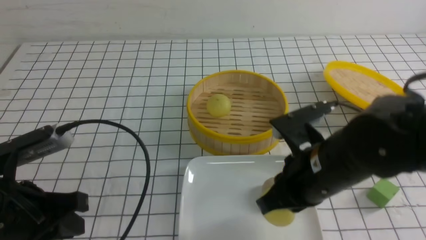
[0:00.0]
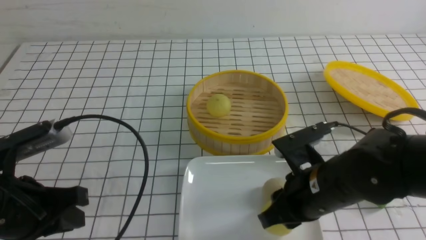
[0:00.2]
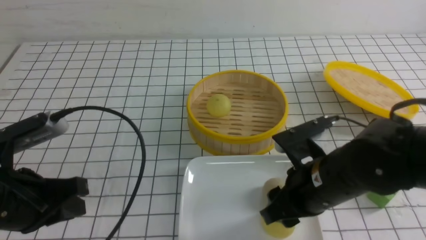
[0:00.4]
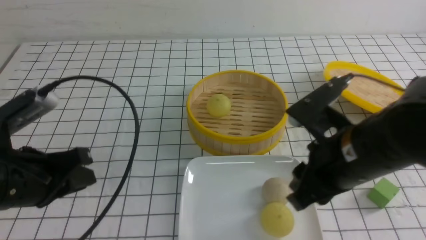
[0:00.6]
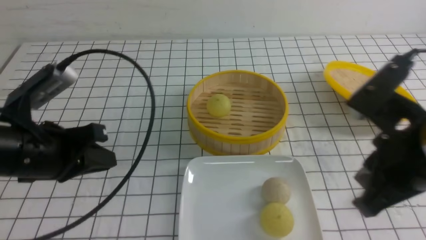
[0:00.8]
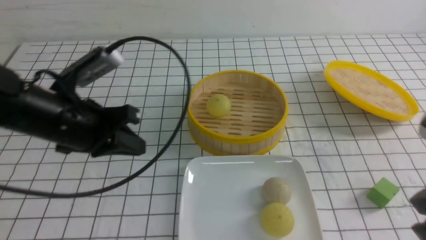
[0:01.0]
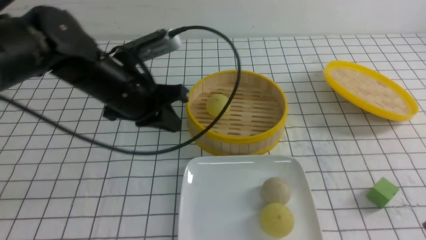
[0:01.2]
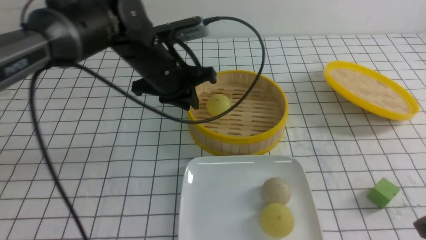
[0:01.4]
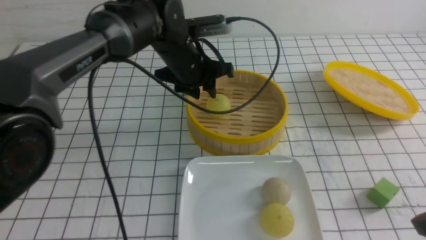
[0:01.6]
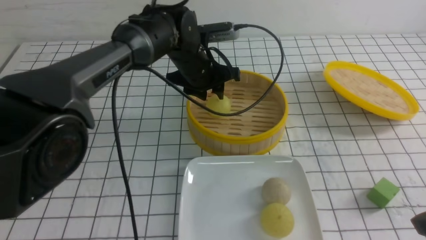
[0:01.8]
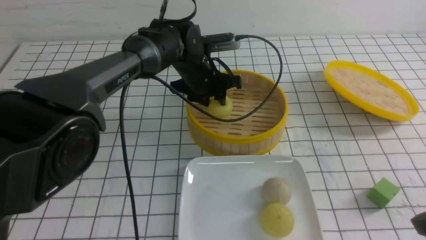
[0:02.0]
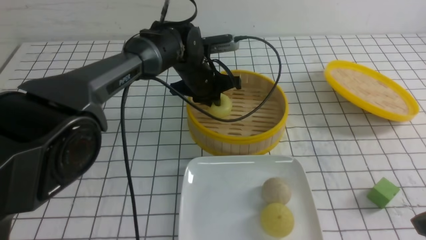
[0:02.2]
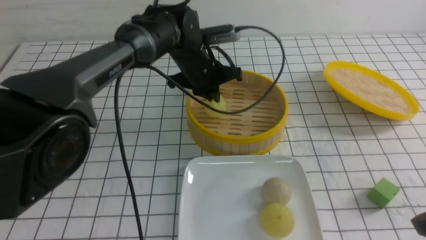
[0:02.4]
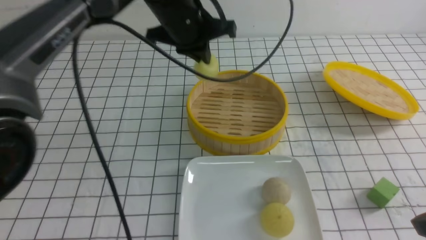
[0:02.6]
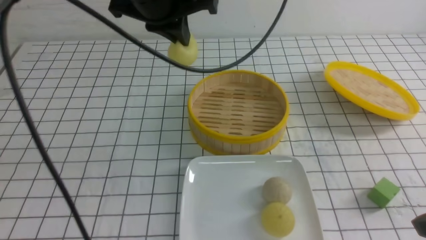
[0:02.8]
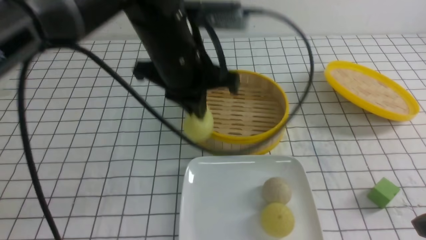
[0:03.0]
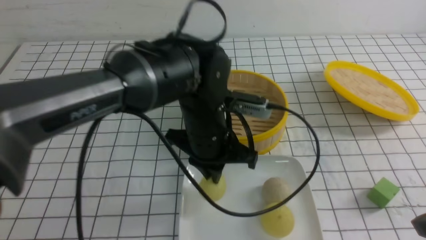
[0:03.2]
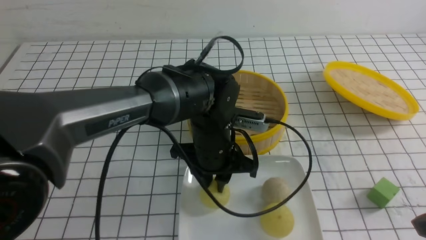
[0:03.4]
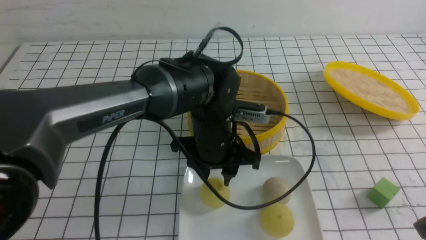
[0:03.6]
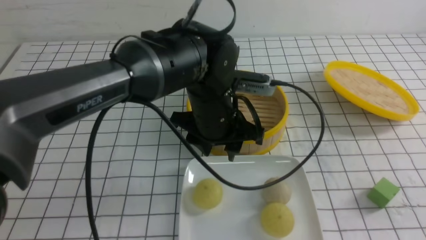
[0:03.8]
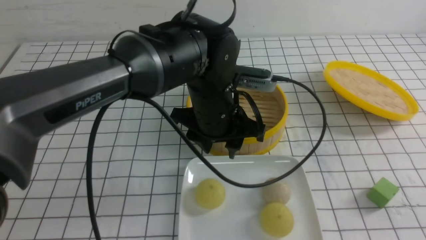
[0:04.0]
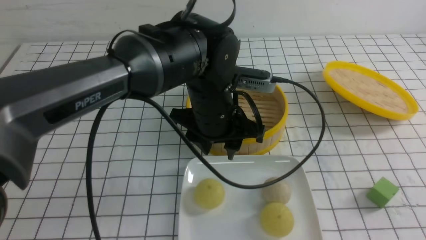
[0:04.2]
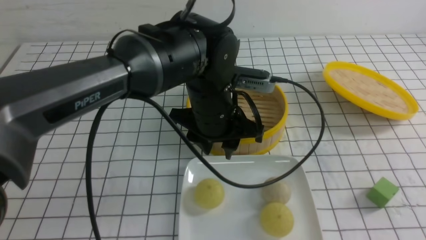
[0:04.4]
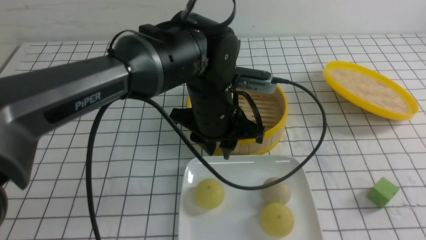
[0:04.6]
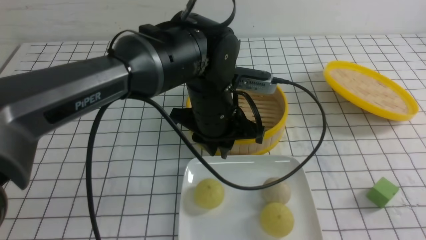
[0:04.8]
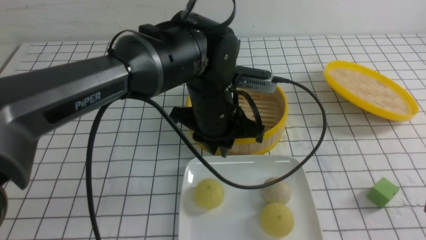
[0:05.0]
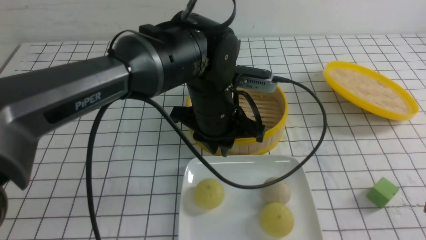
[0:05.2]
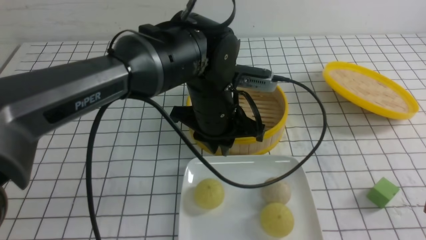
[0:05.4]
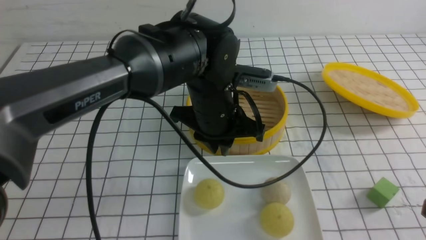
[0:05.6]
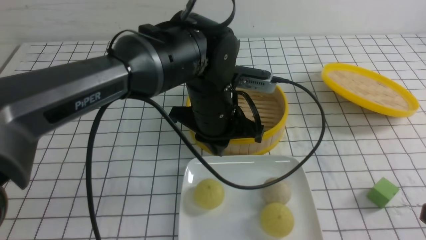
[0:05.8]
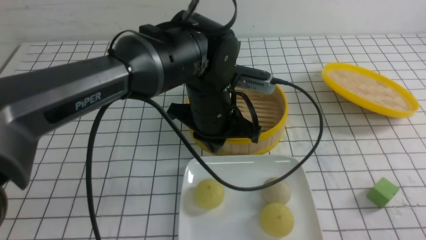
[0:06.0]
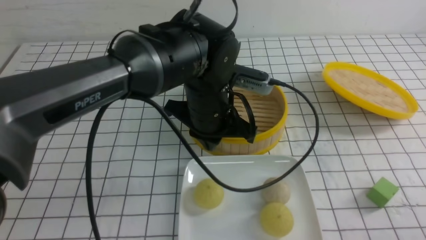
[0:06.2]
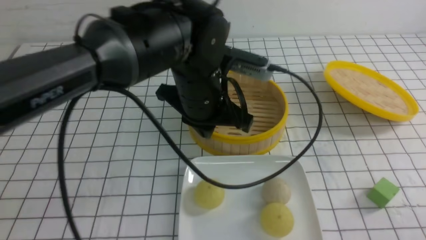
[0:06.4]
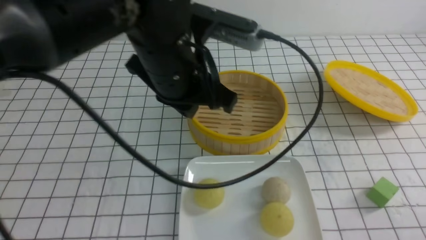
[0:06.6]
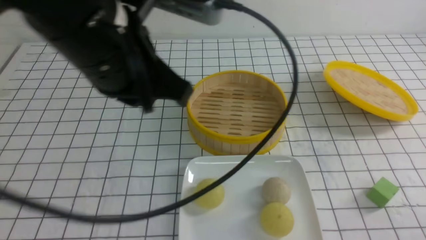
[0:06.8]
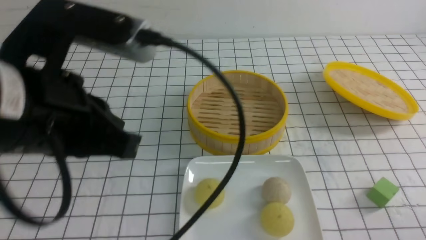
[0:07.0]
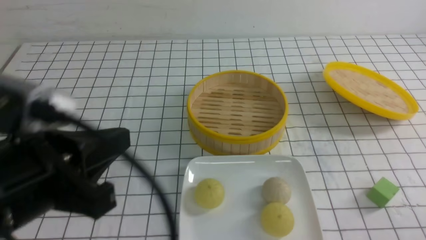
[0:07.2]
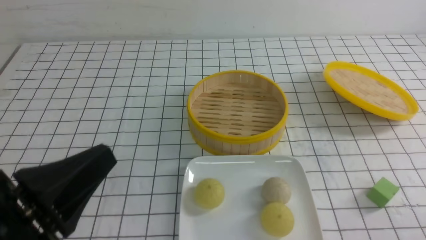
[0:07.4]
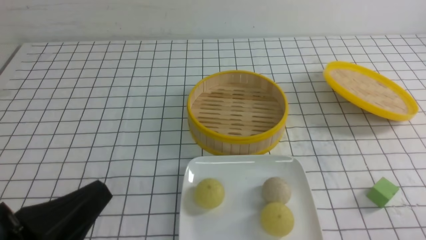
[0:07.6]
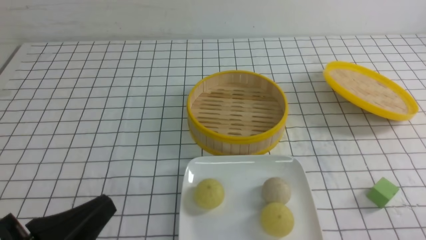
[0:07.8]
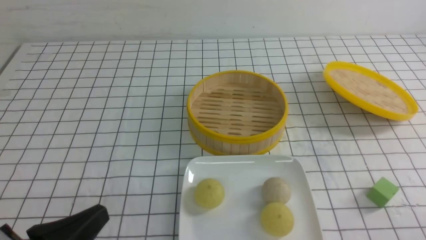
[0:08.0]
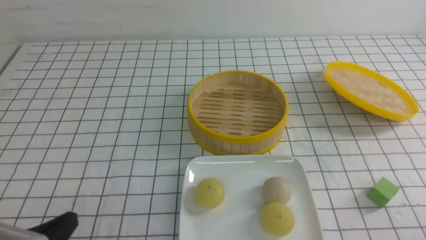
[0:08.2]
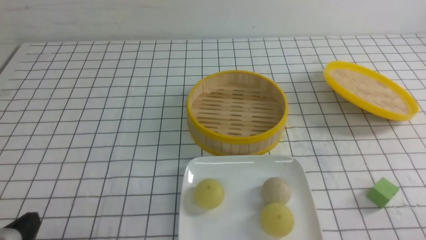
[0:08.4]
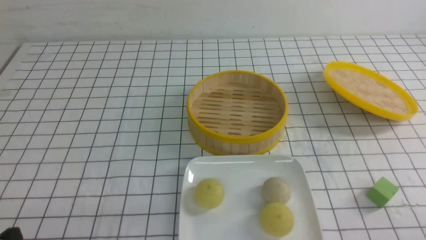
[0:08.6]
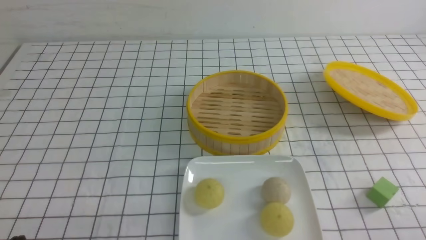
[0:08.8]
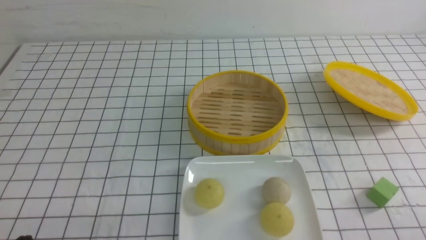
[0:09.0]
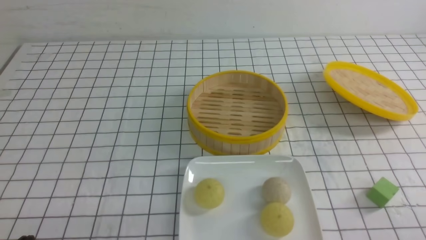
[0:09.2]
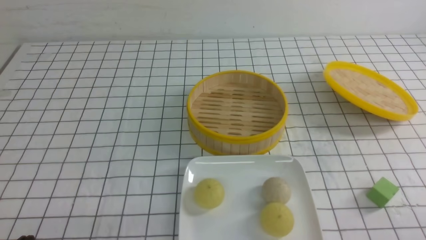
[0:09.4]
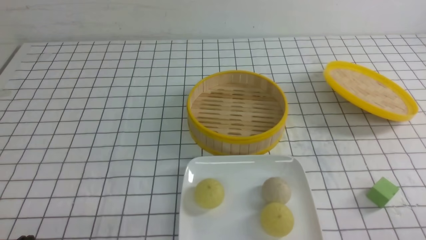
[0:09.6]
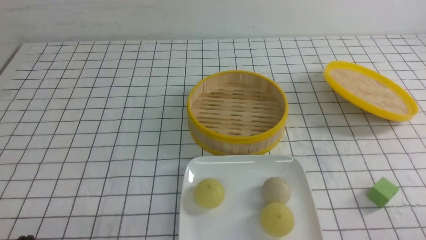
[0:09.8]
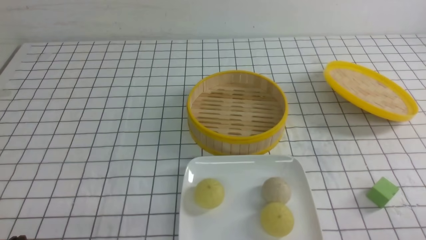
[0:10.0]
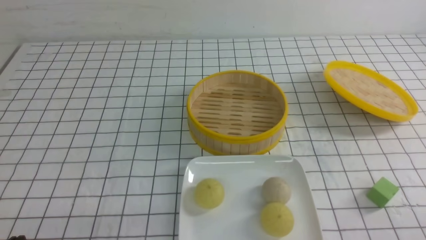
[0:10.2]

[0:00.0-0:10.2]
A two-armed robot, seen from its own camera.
Step, 0:00.6 to 0:02.2: use the left arm to grab the steamed stuffed bun that is closest to it.
Step, 0:02.4 to 0:03.4: use the left arm to put the steamed stuffed bun into the plate.
0:00.0 to 0:01.4: The left gripper heads forward and to the right, covering approximately 25 cm. The right gripper is displaced to the right and backward by approximately 20 cm, and closes up.
0:01.4 to 0:03.0: The left gripper moves up and down over roughly 15 cm, changing direction 2 times, and closes up.
0:03.0 to 0:04.4: The right gripper moves backward, approximately 5 cm, while the left gripper heads downward, covering roughly 5 cm, and opens up.
0:04.4 to 0:05.8: The left gripper closes up.
0:05.8 to 0:07.2: The left gripper travels backward and to the left by about 25 cm. Meanwhile the right gripper moves downward, roughly 10 cm.
0:07.2 to 0:08.8: The left gripper heads downward and to the left, covering approximately 20 cm.
0:08.8 to 0:10.2: Both grippers stay put.

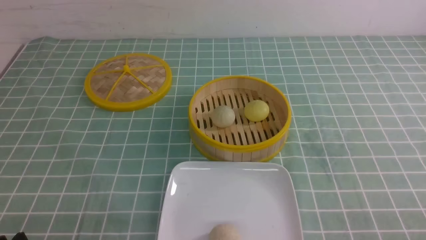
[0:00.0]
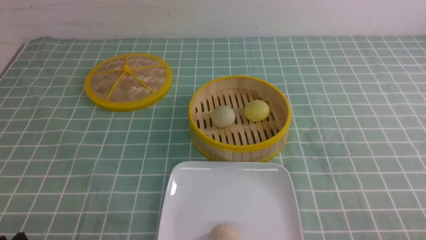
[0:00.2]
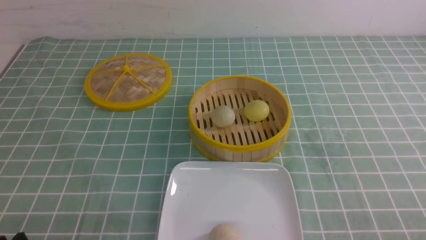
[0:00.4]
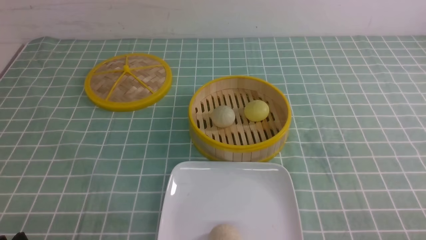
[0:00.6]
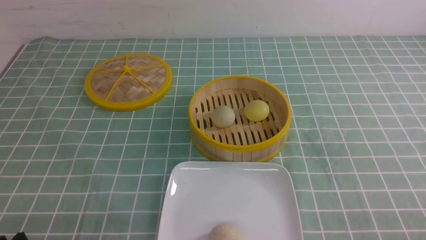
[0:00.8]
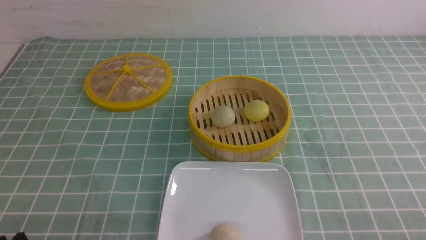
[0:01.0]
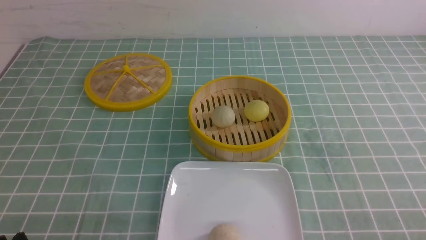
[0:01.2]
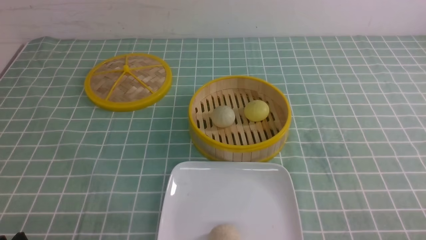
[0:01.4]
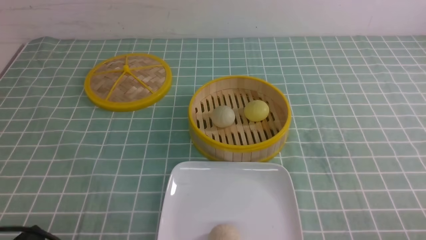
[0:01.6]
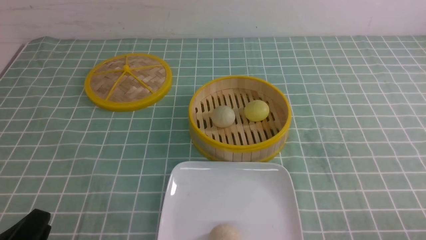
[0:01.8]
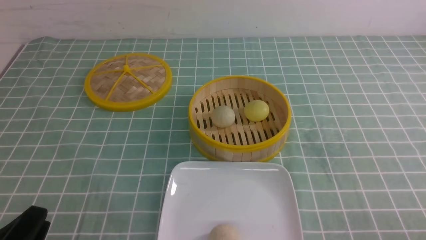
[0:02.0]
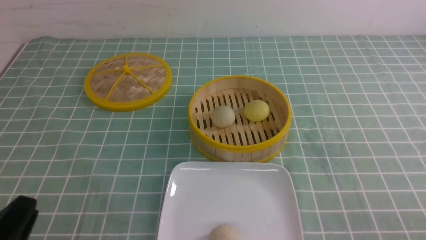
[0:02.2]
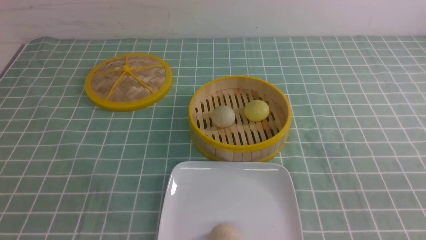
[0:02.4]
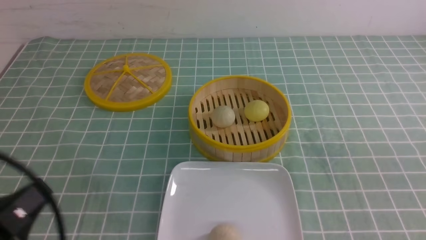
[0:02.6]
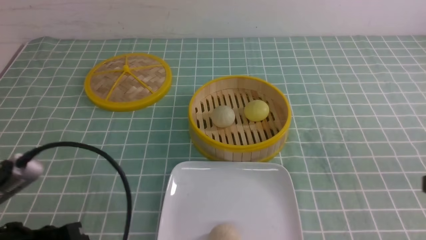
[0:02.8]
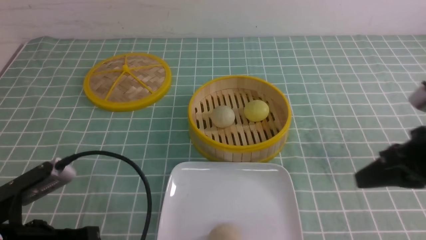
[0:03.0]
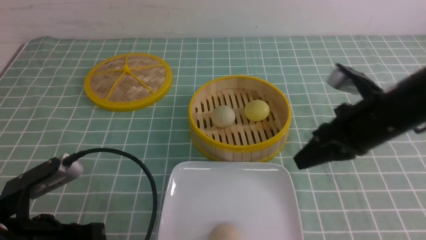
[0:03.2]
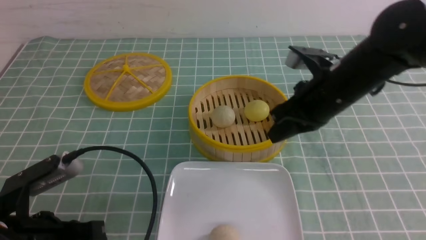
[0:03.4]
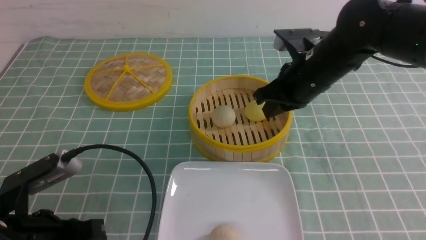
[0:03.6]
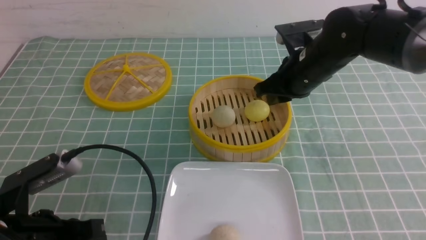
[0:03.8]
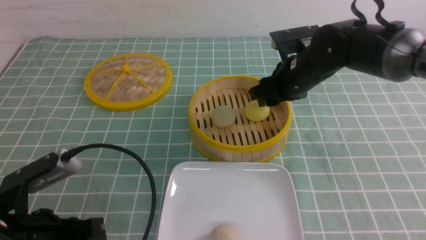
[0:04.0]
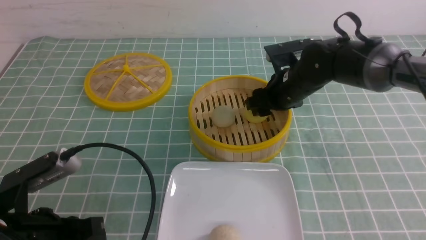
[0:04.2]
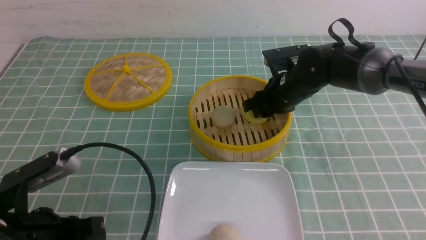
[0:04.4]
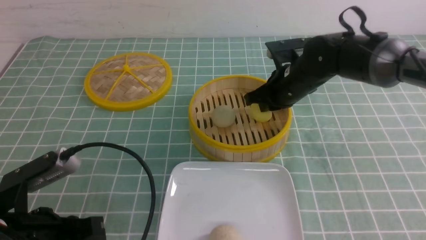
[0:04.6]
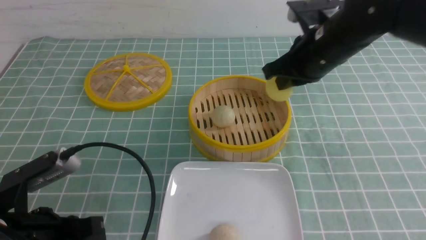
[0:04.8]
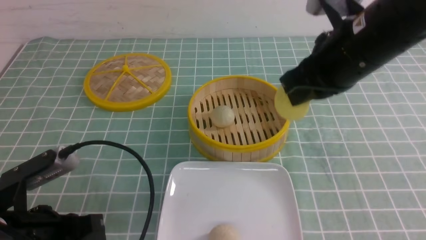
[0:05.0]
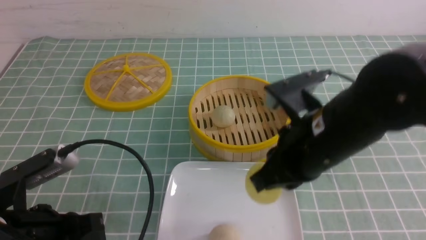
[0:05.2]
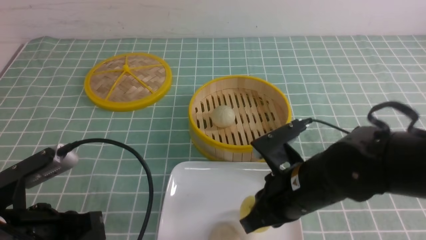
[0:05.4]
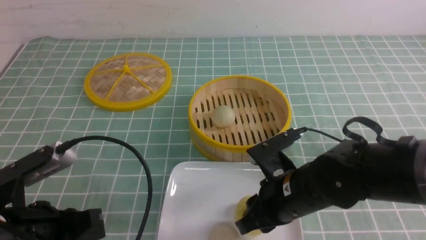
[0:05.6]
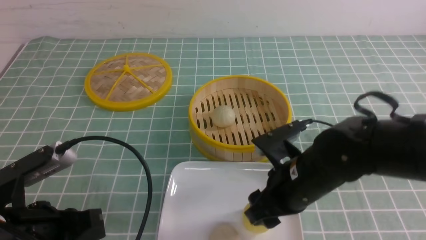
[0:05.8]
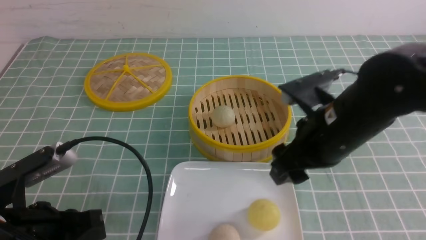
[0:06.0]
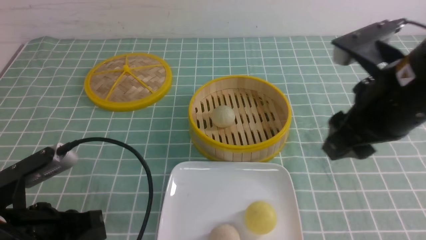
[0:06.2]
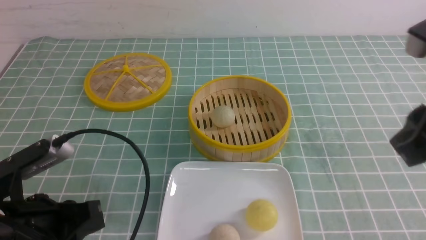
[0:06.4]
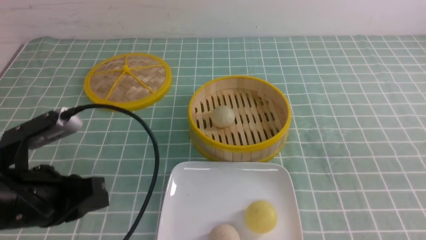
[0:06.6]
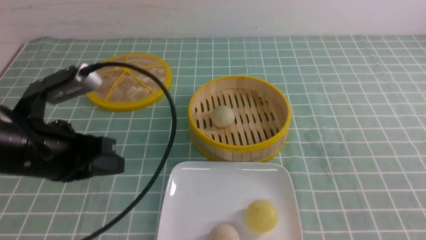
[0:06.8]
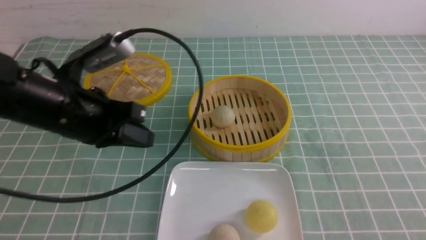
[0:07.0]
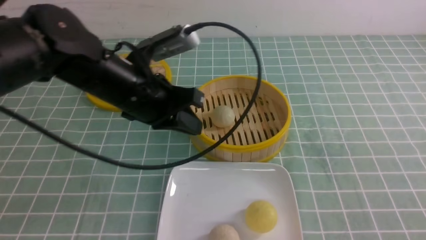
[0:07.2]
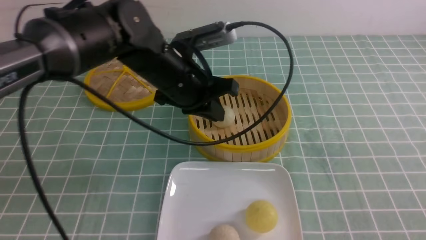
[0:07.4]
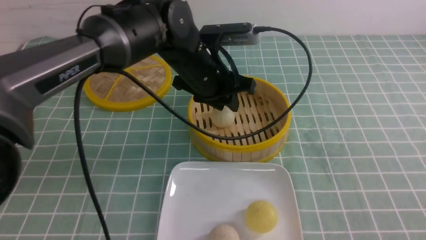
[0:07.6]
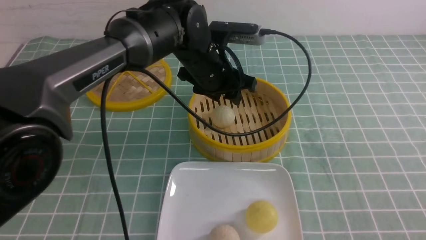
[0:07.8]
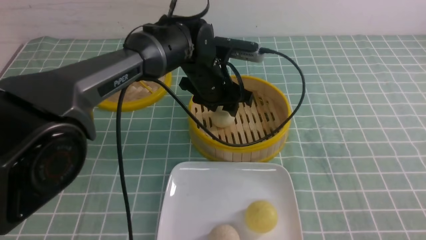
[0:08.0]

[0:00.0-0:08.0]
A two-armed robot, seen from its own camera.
Step, 0:00.0 to 0:04.4: use the right arm to grab the steamed stuffed bun that is closest to it.
Step, 0:04.6 to 0:05.6: use the right arm to put the steamed stuffed bun into the plate.
0:01.6 to 0:03.2: The right gripper heads forward, to the left and upward, covering approximately 30 cm, and closes its fingers; the left gripper goes approximately 5 cm forward, and closes.
0:03.2 to 0:04.8: The right gripper moves forward and to the left, approximately 10 cm, and opens and closes again.
0:04.8 to 0:06.4: The right gripper goes approximately 20 cm backward and to the right, reaches some 15 cm downward, then returns, and opens, then closes once more.
0:06.4 to 0:08.0: The right gripper moves backward, downward and to the right, about 15 cm. The left gripper shifts about 35 cm forward and to the right, and opens its fingers.
